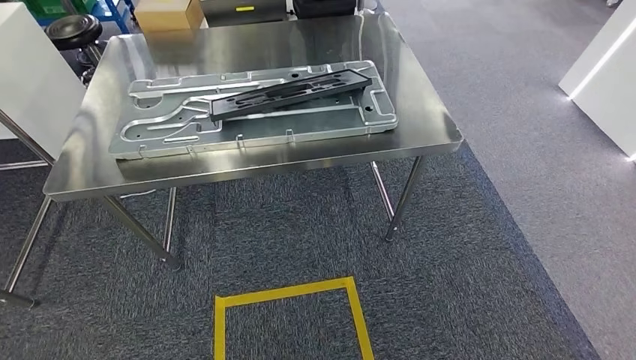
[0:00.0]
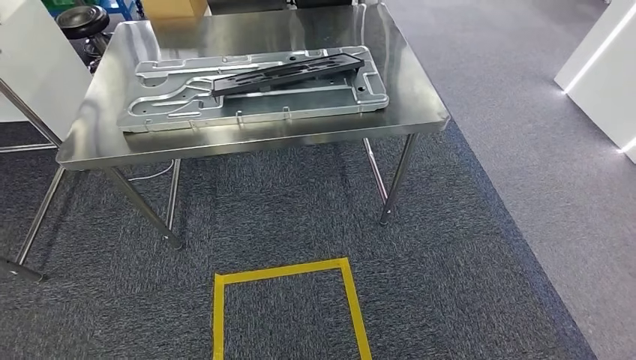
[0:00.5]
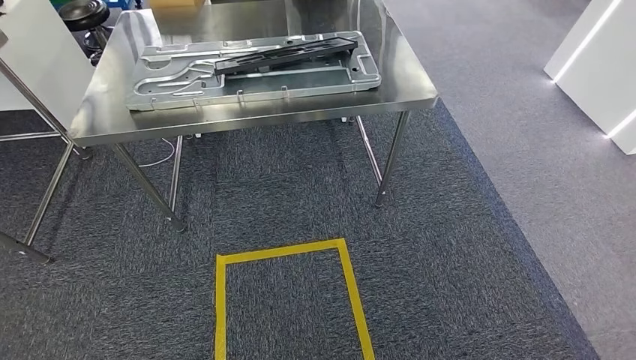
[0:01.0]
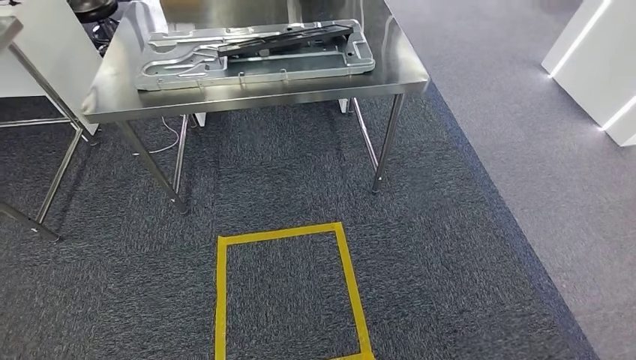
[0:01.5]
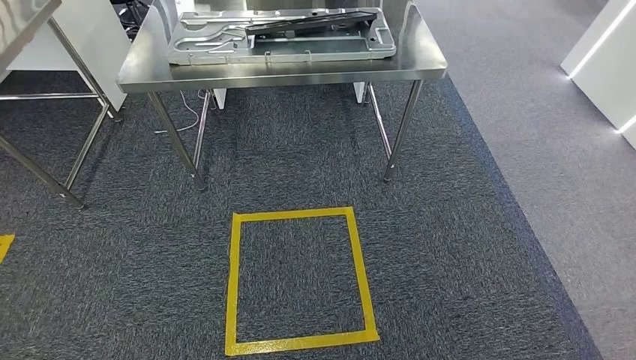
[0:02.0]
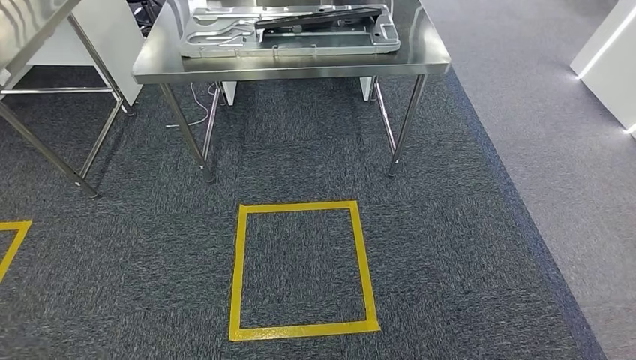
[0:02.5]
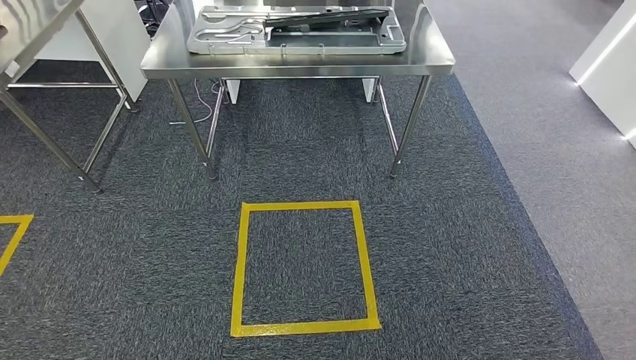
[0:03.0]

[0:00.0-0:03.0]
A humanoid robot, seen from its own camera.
Step, 0:01.0 to 0:03.0: Move to the initial position of the shelf.
